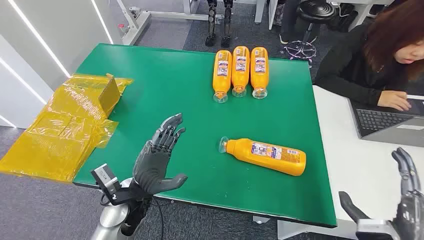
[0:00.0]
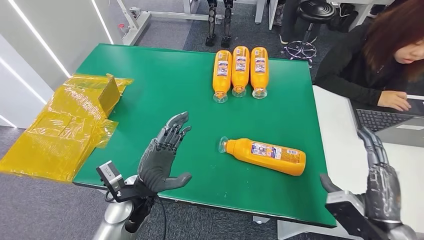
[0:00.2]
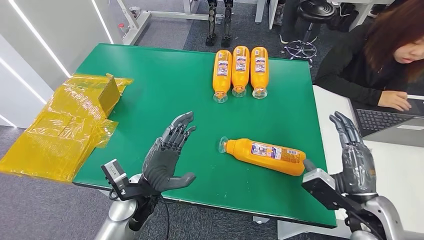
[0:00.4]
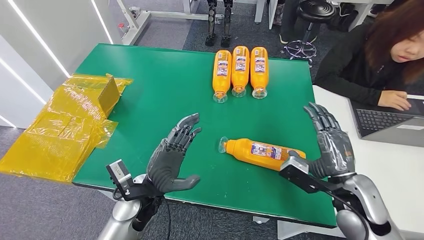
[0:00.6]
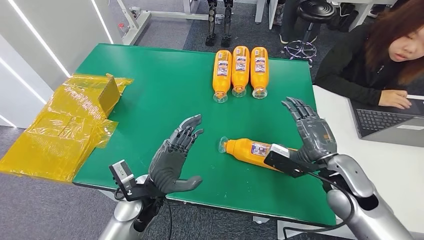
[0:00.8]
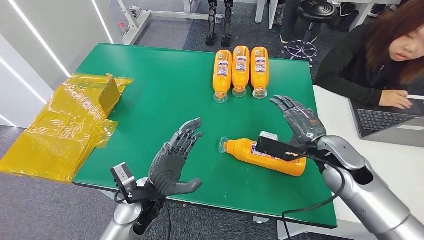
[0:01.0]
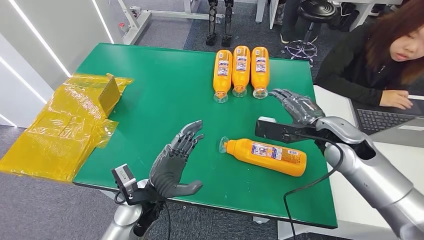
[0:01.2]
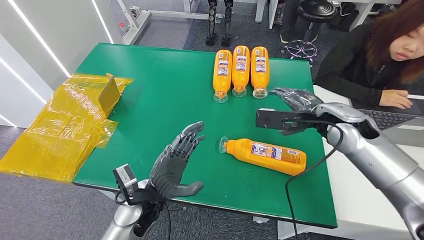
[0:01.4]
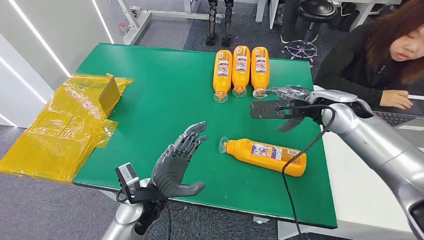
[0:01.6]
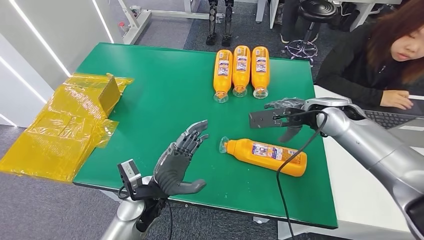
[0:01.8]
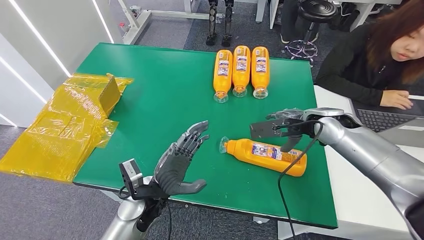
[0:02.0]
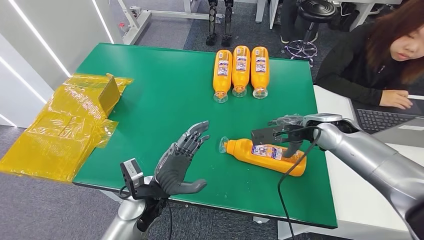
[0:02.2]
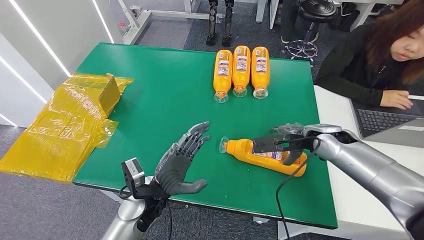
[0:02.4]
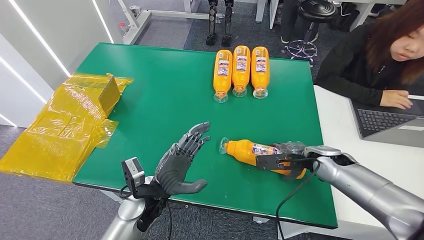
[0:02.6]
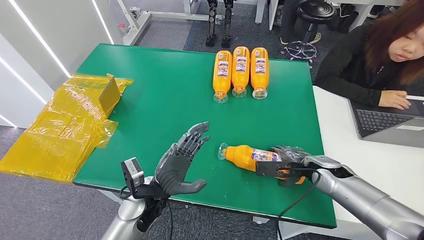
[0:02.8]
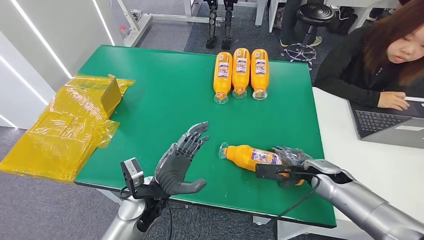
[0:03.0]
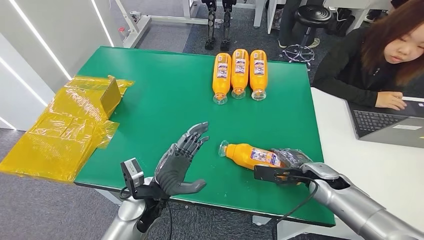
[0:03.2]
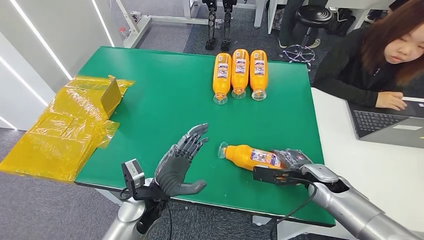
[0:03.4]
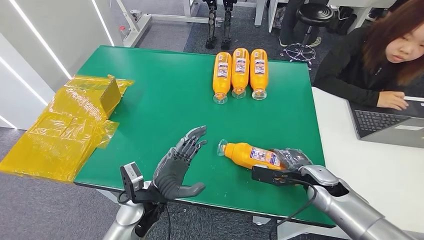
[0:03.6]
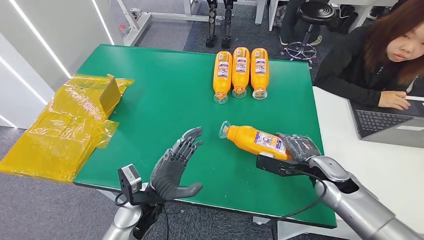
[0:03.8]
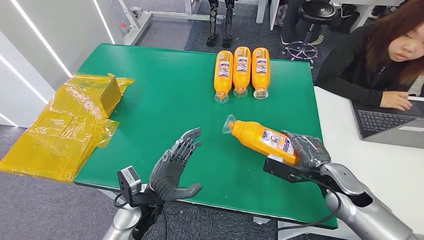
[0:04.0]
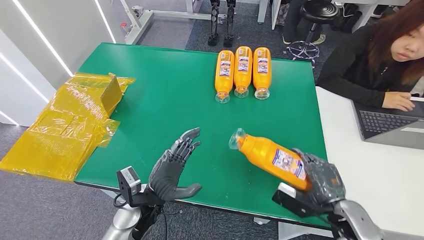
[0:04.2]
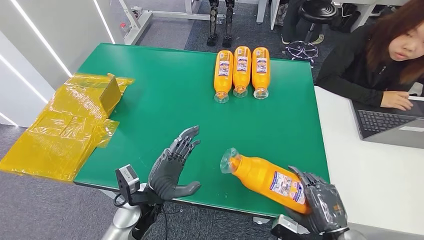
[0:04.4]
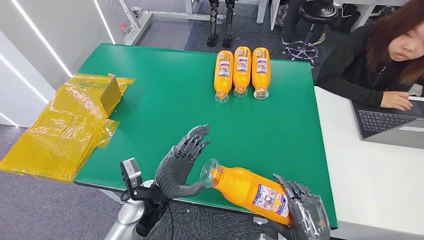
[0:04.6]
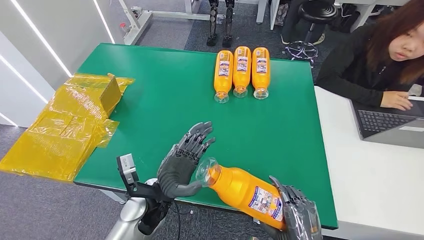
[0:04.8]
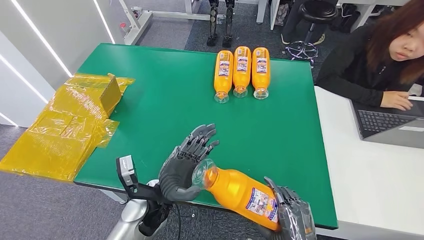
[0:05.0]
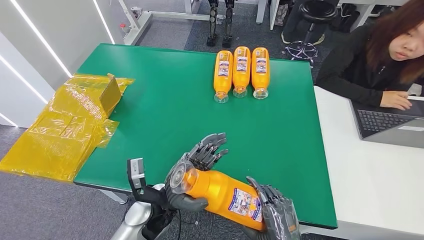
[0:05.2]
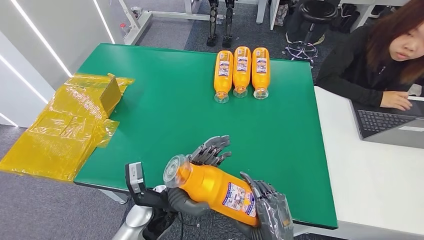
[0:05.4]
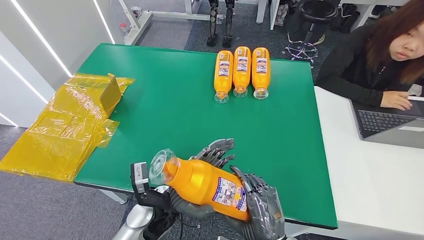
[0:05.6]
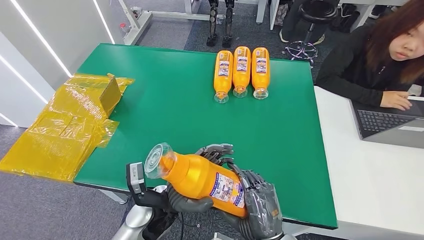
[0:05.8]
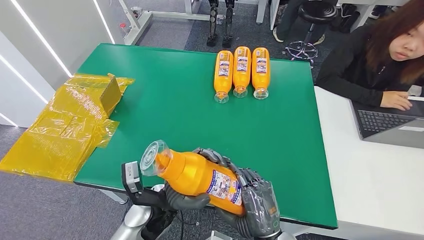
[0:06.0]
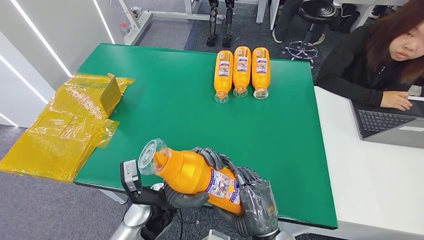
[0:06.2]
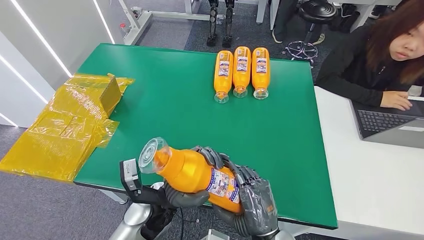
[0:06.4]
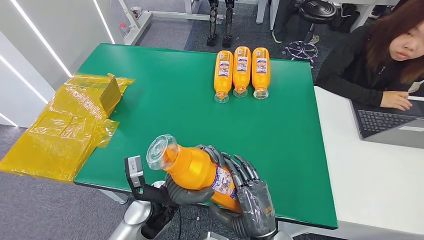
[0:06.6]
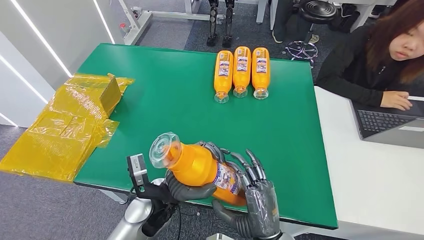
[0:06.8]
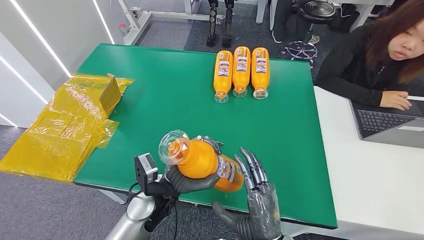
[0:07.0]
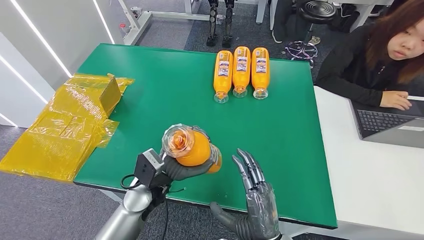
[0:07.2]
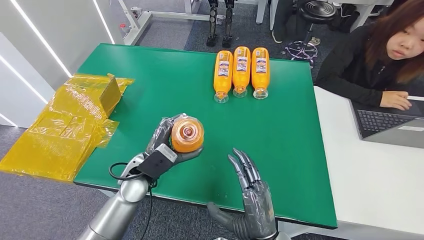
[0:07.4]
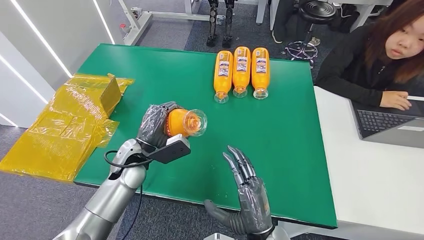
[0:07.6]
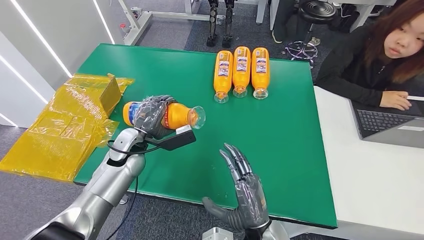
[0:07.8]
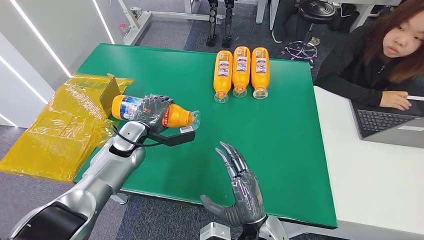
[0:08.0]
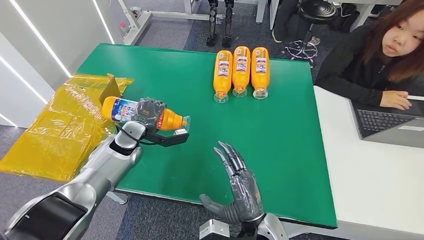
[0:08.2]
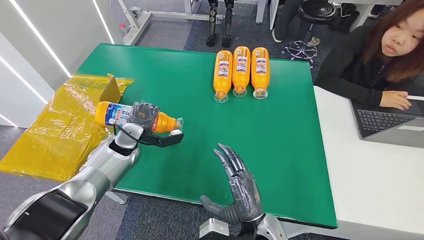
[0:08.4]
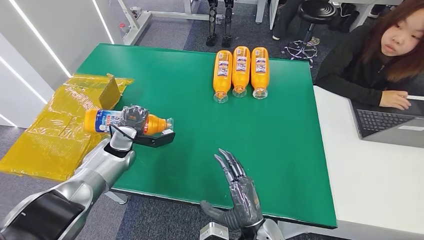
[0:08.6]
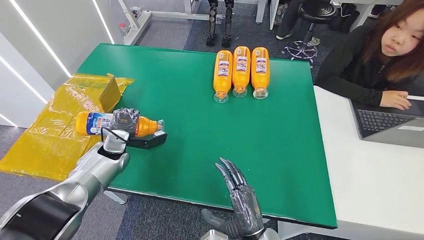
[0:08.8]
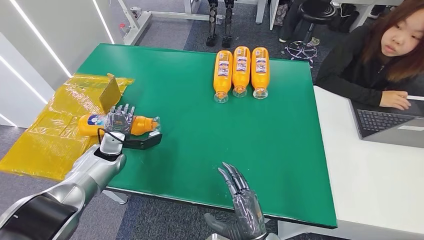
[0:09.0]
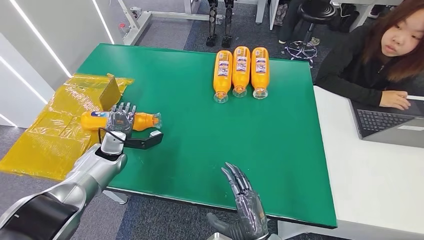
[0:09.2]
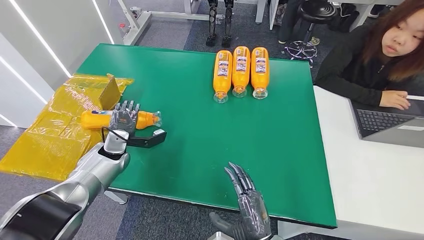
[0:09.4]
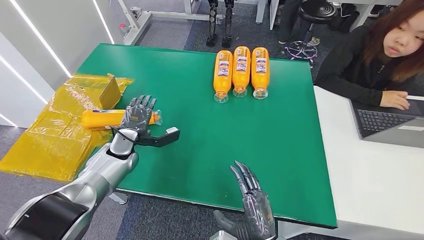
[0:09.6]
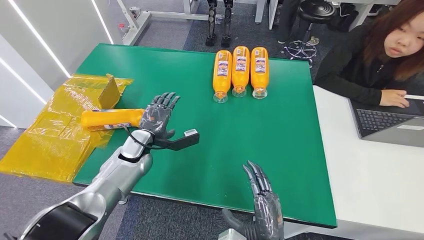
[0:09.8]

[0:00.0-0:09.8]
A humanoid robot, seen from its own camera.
Step, 0:00.0 to 0:04.2: Pick up the bottle from the table.
Step, 0:04.4 to 0:09.8: Turn the bottle to the front side.
0:01.4 to 0:02.8: The right hand moves downward, about 15 cm.
0:02.8 to 0:04.2: The right hand moves backward, roughly 15 cm.
0:04.2 to 0:05.6: The left hand moves roughly 5 cm. Meanwhile the right hand moves to the left and backward, roughly 20 cm.
0:05.6 to 0:07.0: The hands move only a little.
0:07.0 to 0:08.4: The left hand travels to the left and forward by about 20 cm; the right hand changes place by approximately 5 cm.
0:08.4 to 0:09.8: The right hand moves backward, roughly 5 cm.
